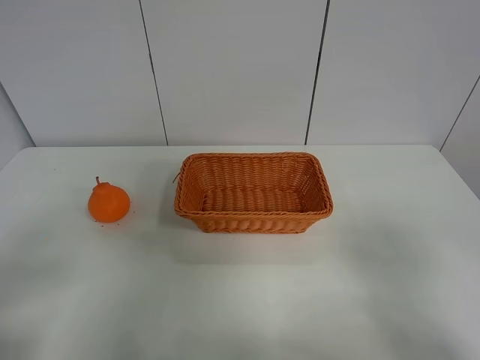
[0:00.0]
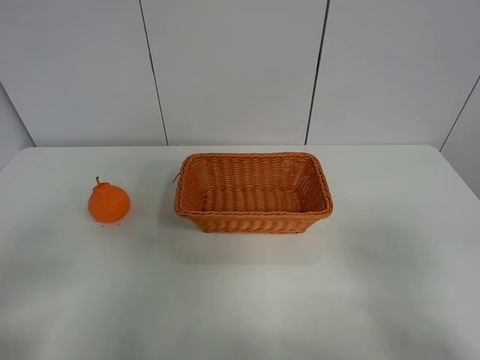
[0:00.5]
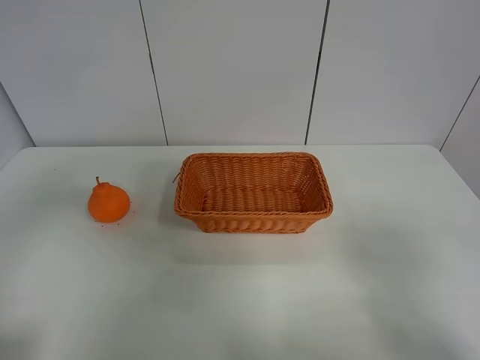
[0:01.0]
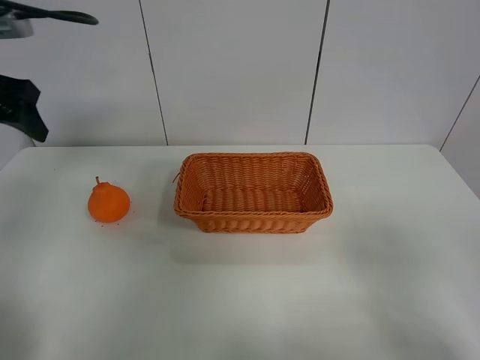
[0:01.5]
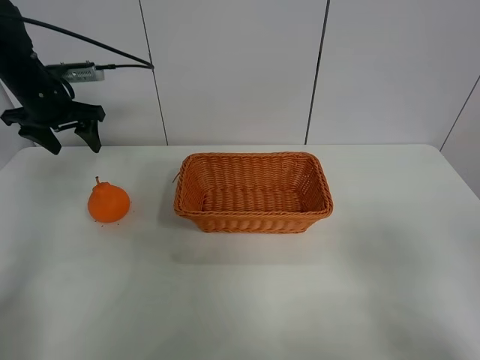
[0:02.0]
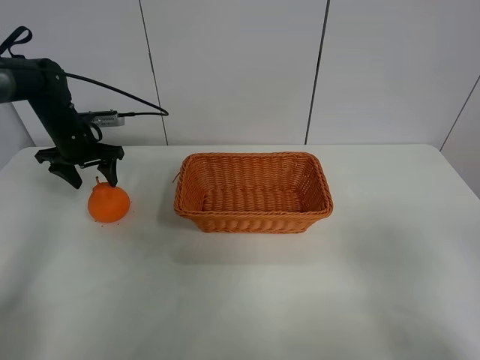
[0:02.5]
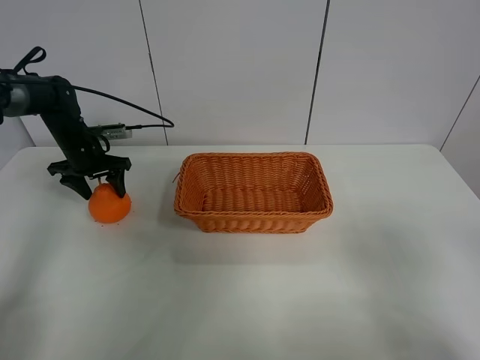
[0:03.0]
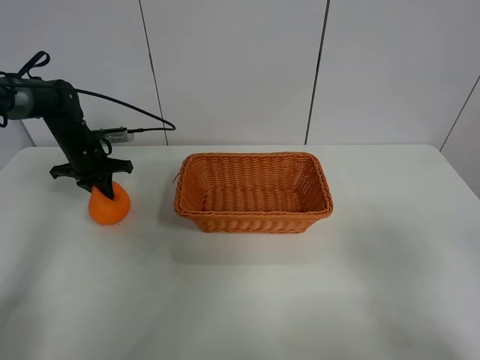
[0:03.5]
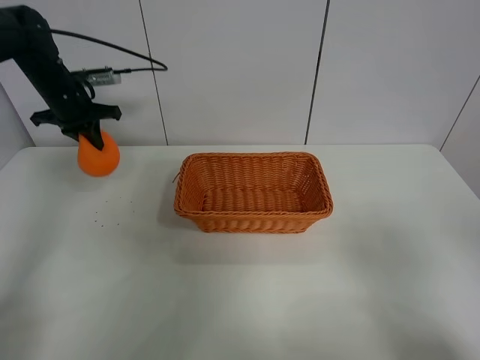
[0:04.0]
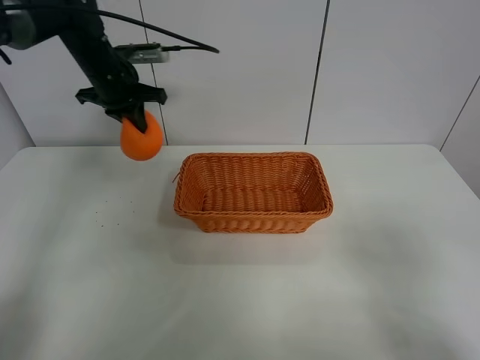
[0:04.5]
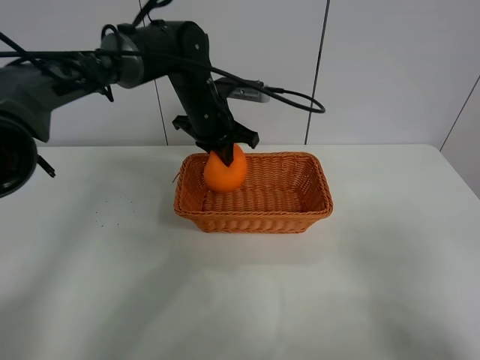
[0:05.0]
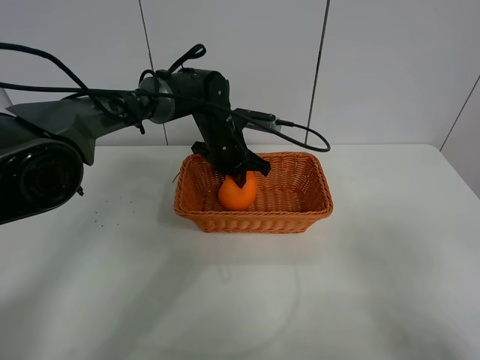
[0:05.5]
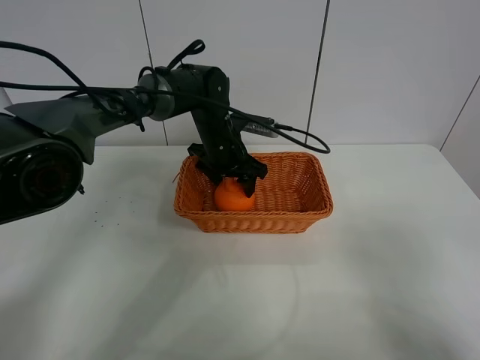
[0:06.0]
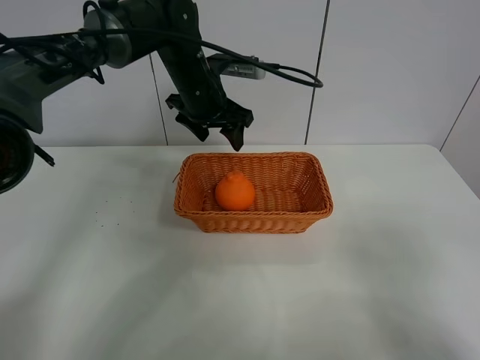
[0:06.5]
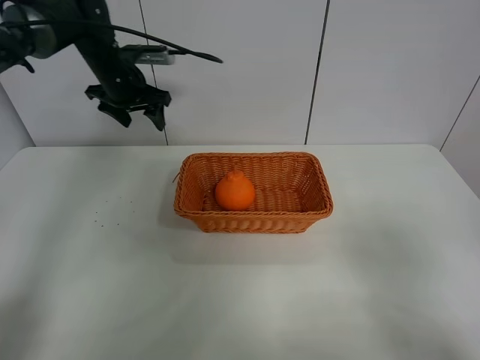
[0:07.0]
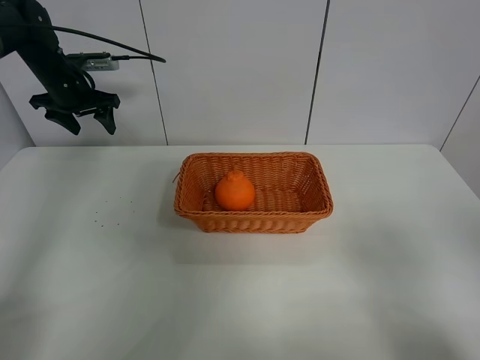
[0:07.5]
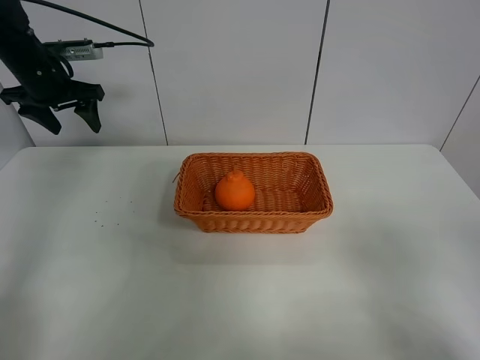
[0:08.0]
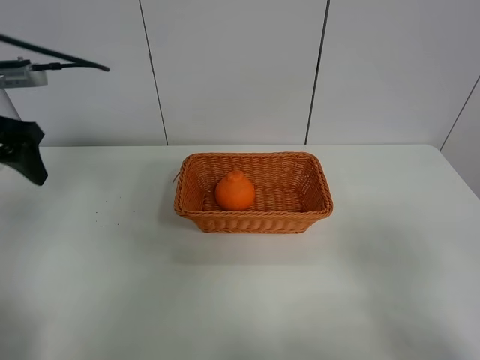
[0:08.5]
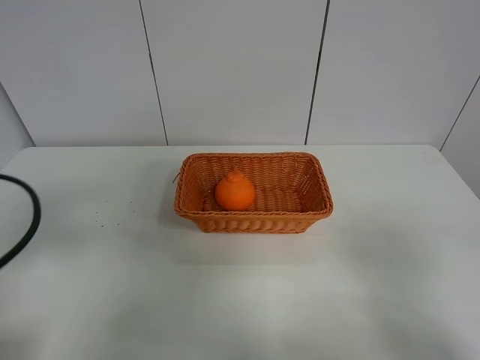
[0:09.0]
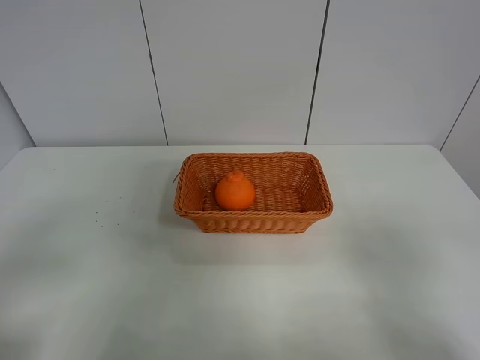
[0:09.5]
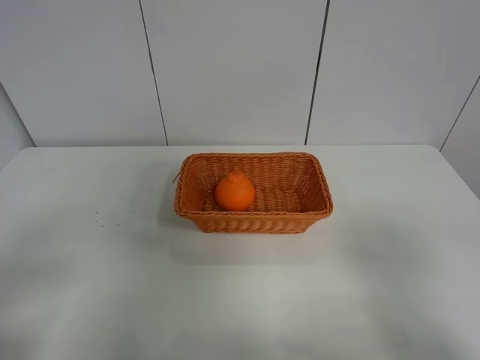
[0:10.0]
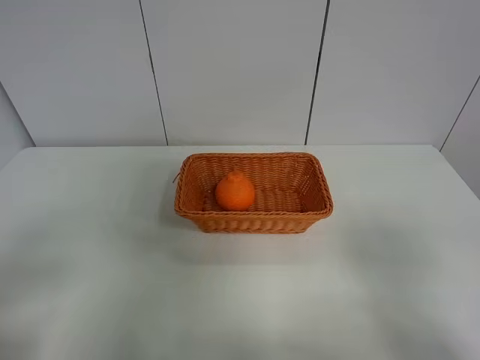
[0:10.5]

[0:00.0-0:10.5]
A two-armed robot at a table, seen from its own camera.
Task of the whole recording: left gripper grabs oranges and puts them in the basket.
Step, 0:00.0 to 0:03.5: Grasp the orange with left gripper.
Step, 0:04.0 to 0:06.5: Place the orange in the basket with left gripper.
0:00.0 to 0:02.0: The left gripper shifts roughly 40 cm forward.
0:02.0 to 0:04.0: The left gripper moves about 10 cm downward and comes back, and closes up.
0:04.0 to 0:06.5: The left gripper goes some 25 cm to the right, and opens up.
0:06.5 to 0:08.5: The left gripper moves to the left and backward, about 30 cm.
0:08.5 to 0:10.5: The left gripper shifts roughly 25 cm backward.
